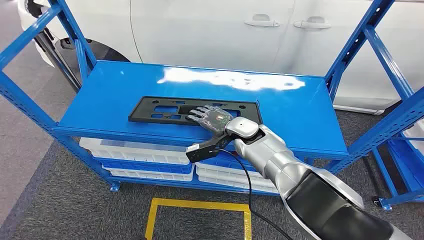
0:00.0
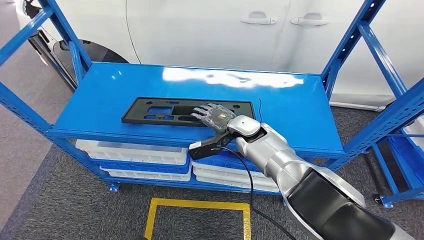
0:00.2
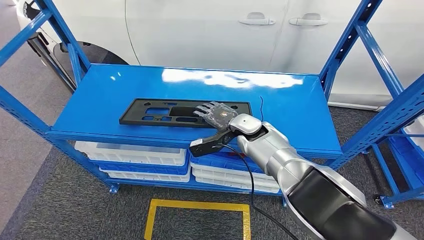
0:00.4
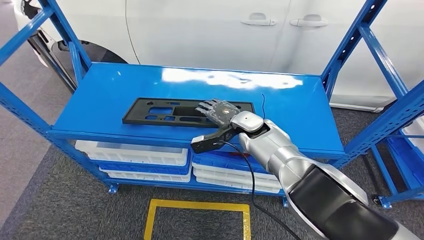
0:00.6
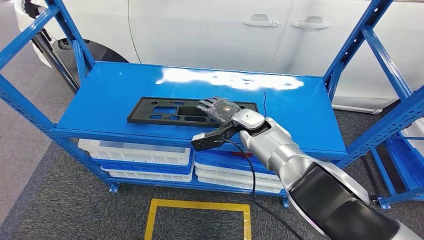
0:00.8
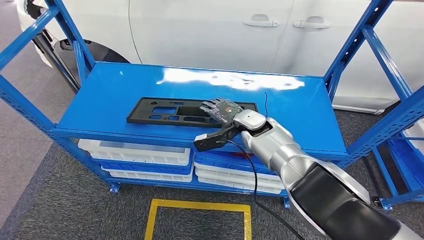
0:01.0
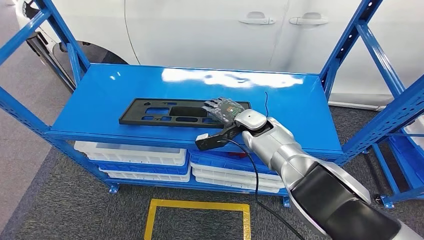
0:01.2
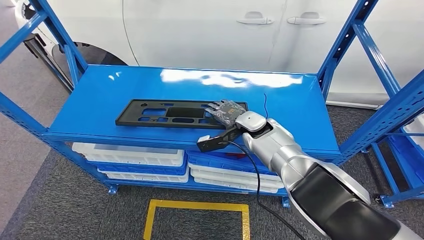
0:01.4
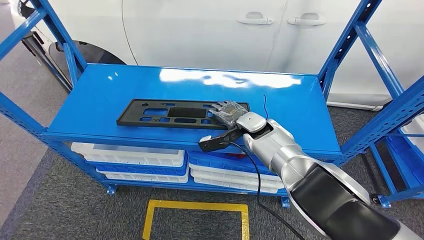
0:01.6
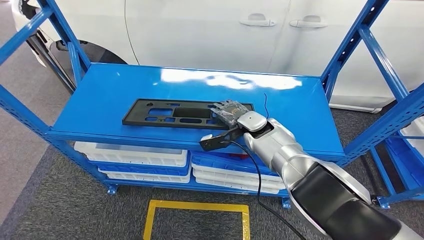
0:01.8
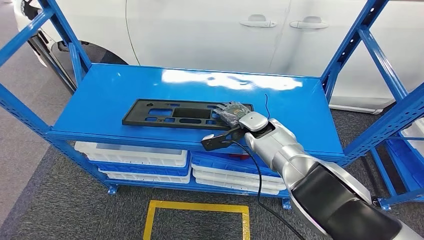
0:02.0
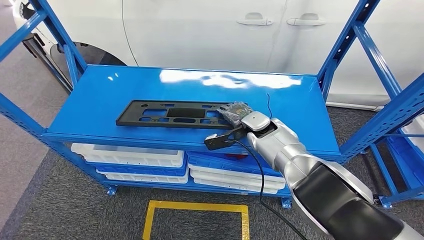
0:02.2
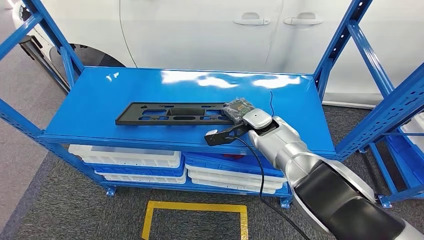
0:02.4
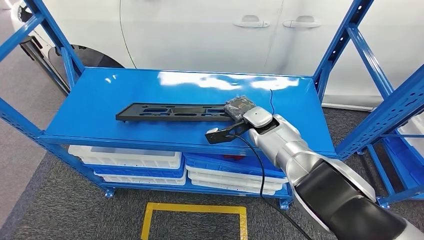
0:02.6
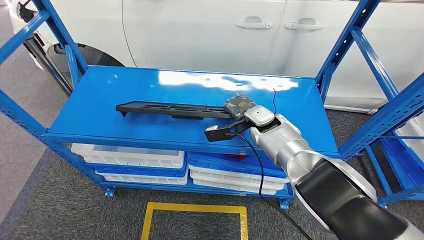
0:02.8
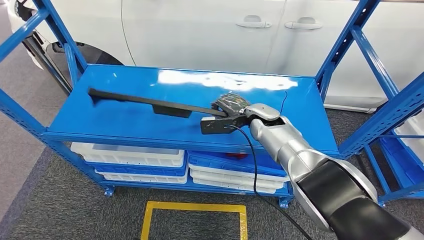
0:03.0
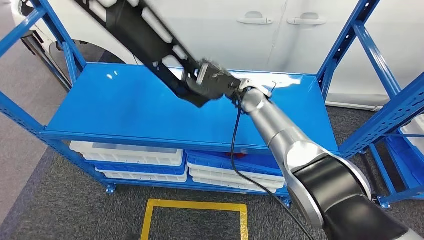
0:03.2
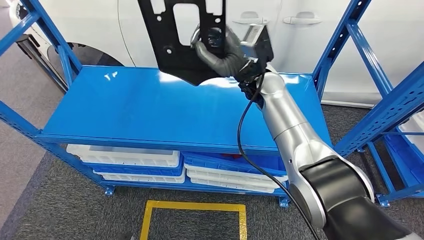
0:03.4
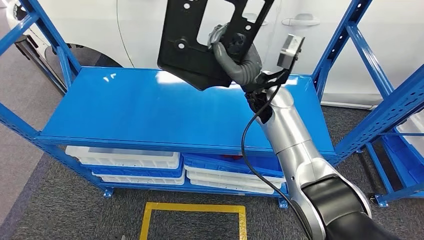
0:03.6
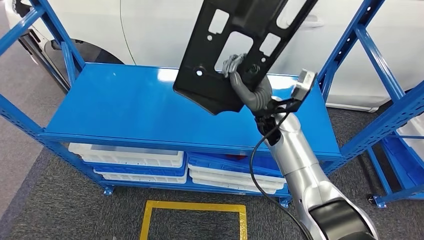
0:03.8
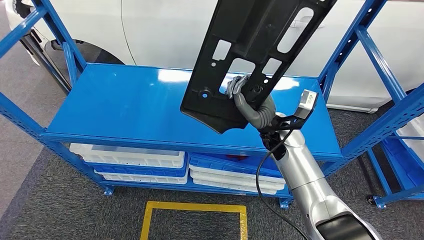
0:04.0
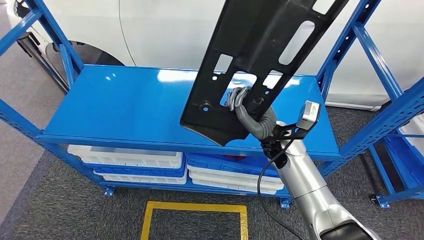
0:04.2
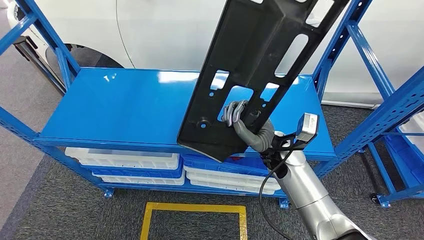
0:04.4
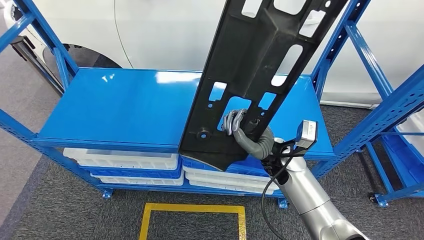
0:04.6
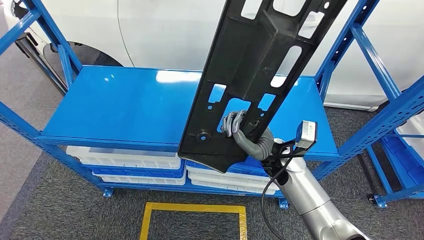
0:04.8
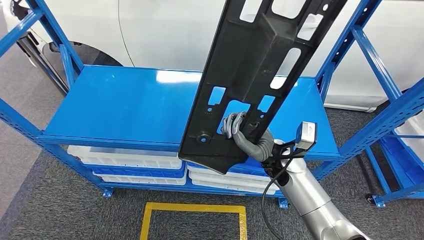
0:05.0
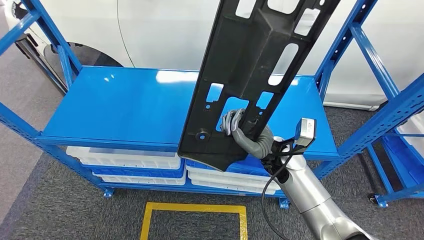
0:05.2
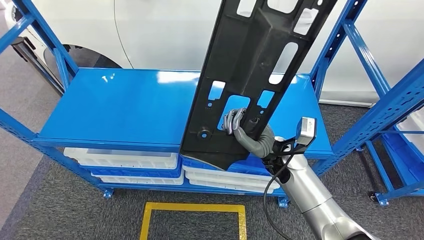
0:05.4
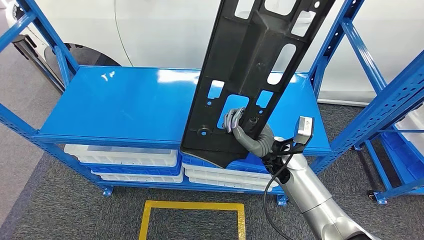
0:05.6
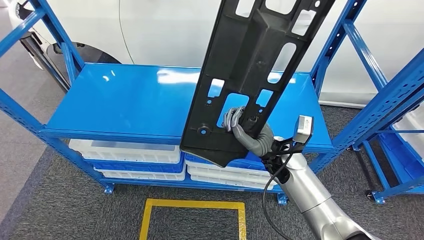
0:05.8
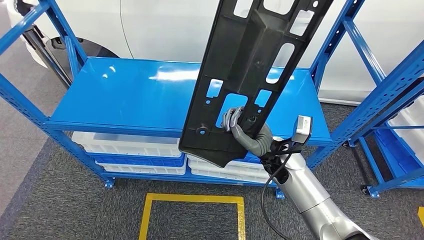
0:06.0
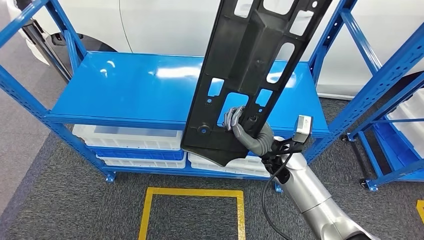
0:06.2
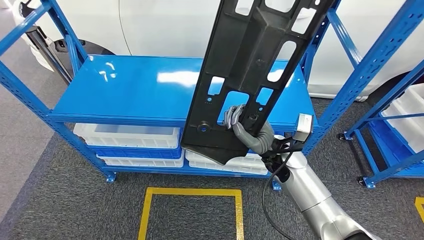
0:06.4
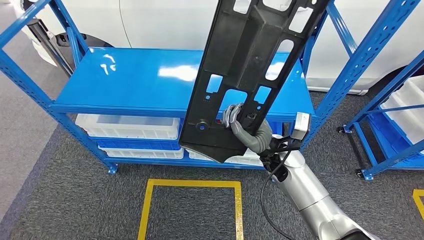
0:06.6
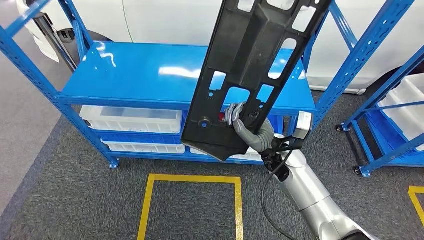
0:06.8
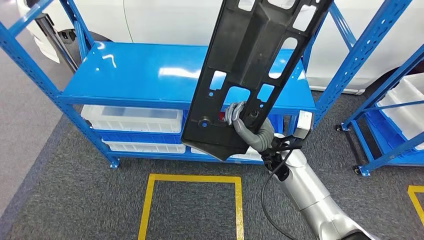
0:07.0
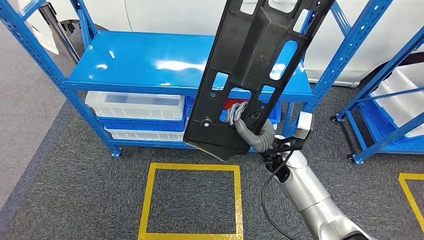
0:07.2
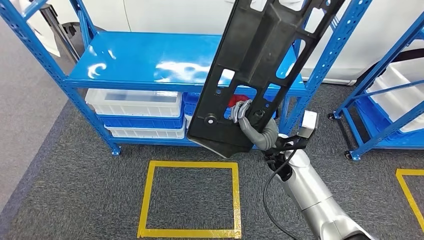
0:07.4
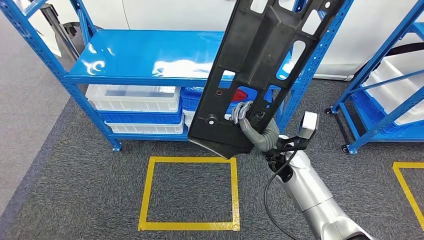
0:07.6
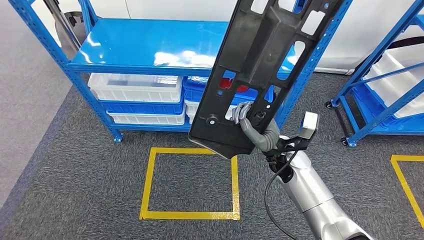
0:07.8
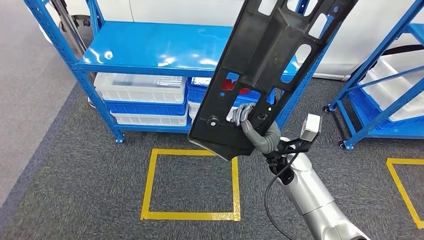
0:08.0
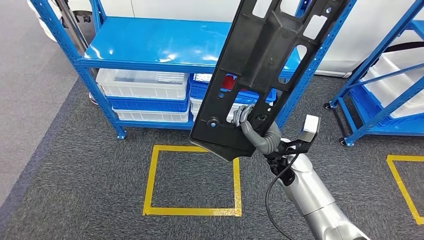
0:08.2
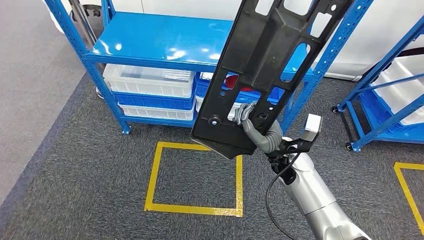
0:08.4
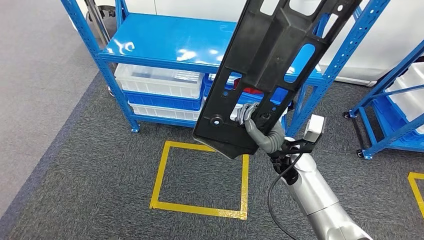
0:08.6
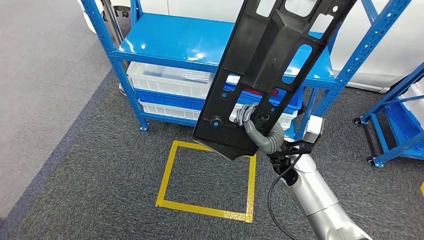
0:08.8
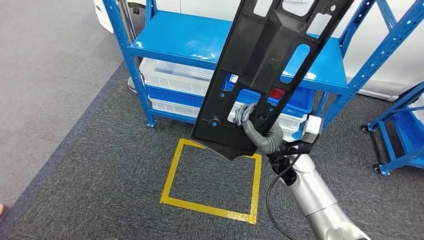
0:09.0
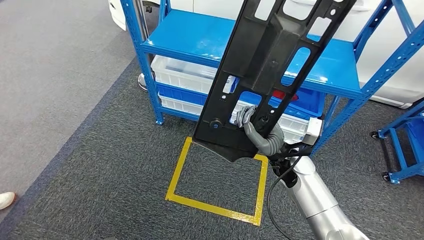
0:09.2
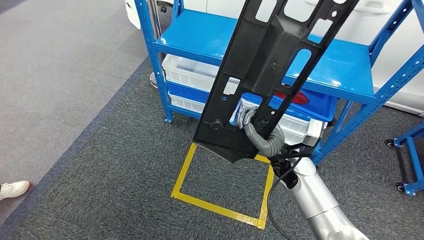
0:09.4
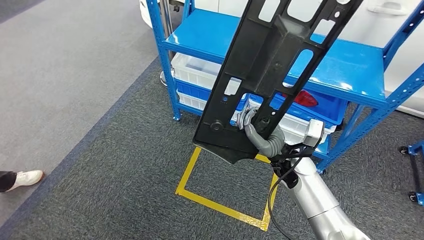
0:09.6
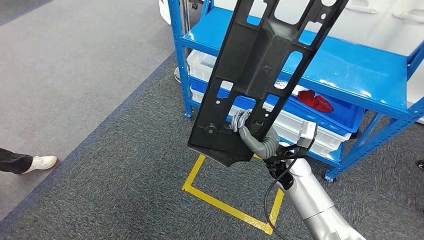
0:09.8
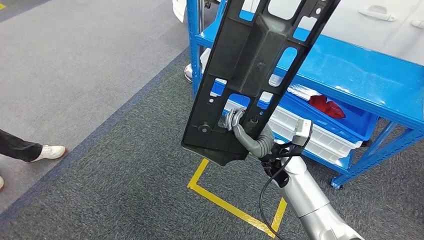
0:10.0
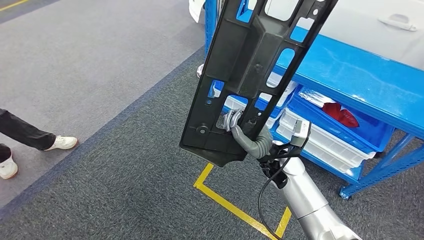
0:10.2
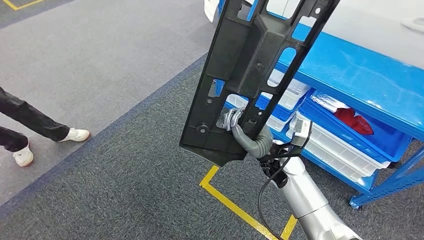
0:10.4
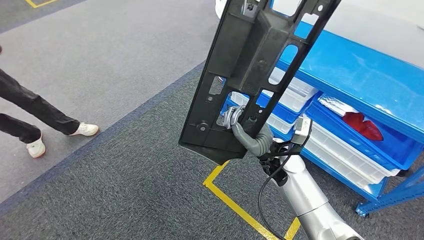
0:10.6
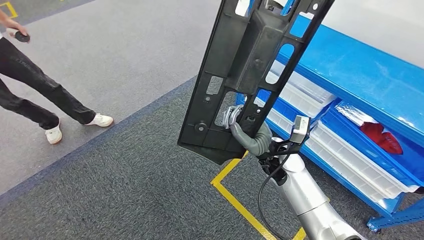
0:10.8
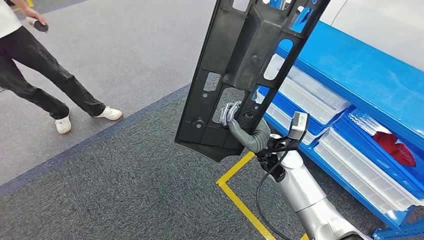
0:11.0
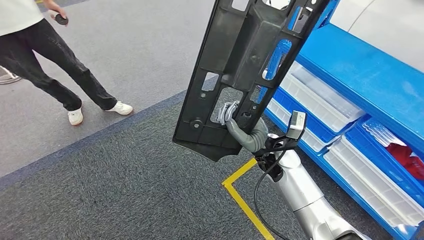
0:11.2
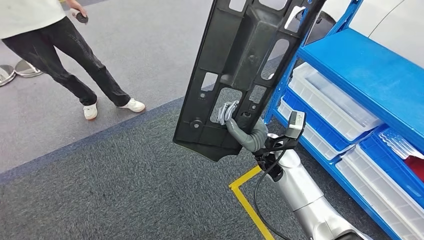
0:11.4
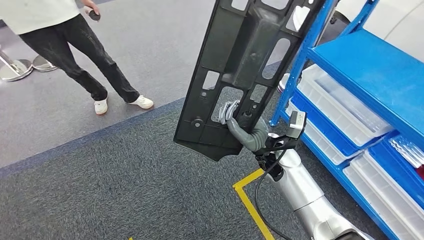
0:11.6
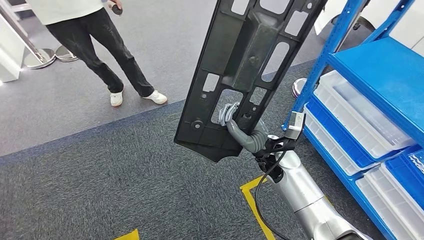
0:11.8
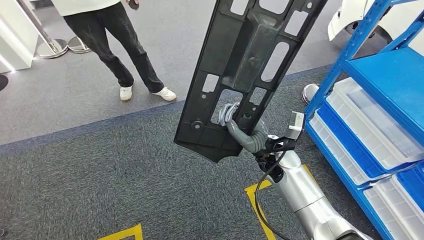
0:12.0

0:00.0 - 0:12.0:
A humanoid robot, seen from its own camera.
Step, 0:00.0 - 0:04.6: Pick up the large material from the shelf.

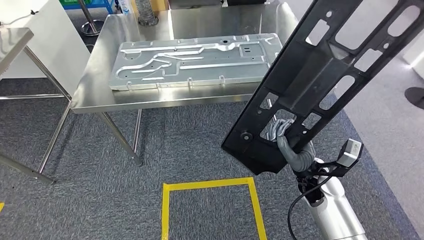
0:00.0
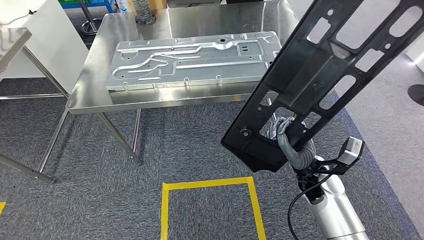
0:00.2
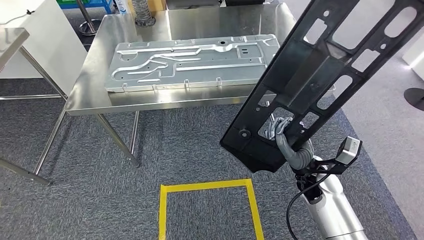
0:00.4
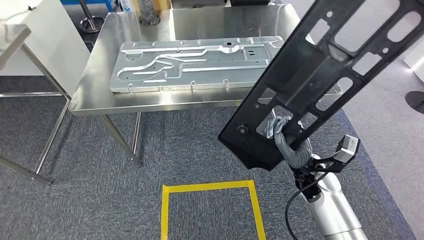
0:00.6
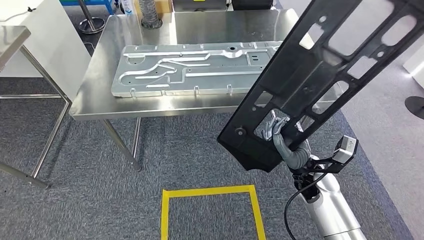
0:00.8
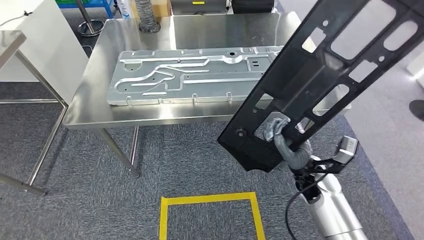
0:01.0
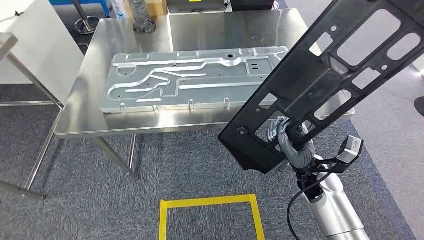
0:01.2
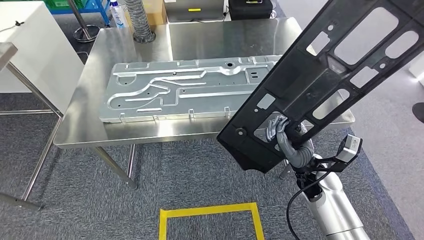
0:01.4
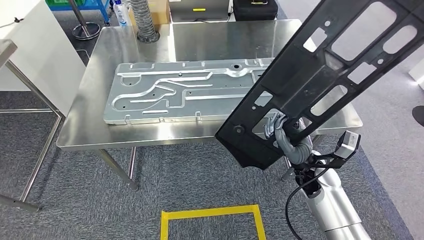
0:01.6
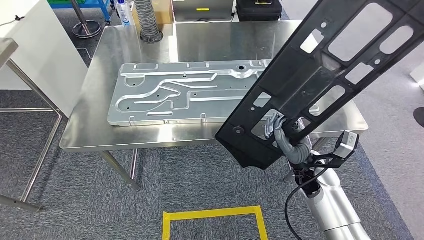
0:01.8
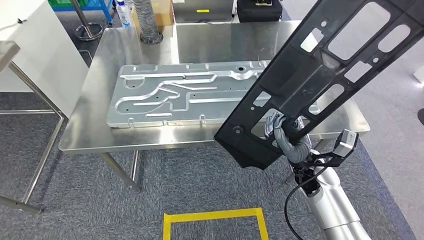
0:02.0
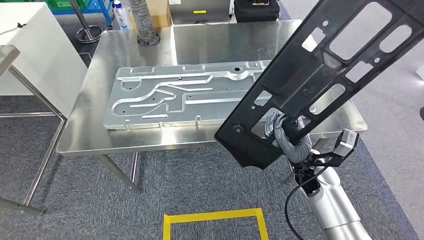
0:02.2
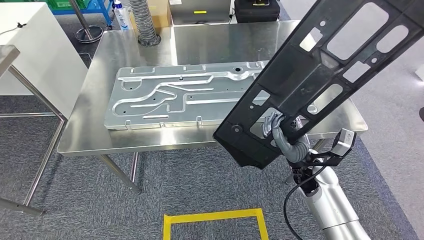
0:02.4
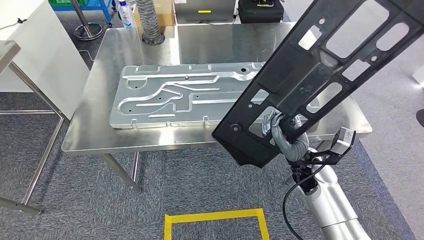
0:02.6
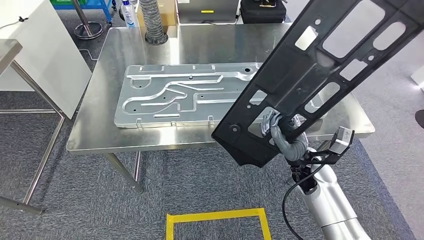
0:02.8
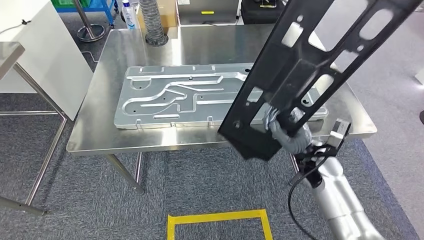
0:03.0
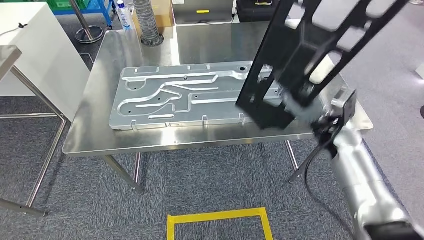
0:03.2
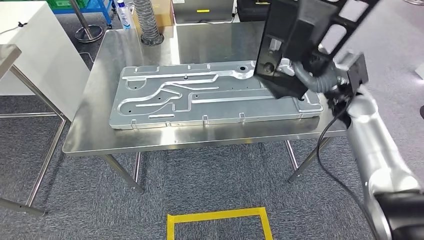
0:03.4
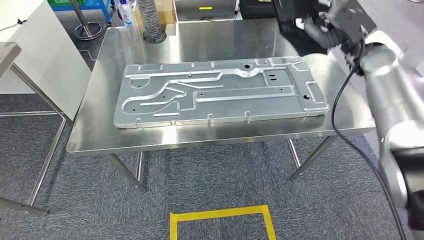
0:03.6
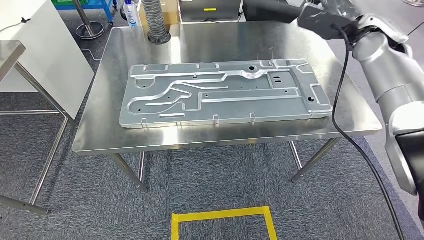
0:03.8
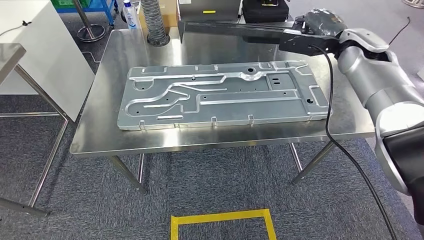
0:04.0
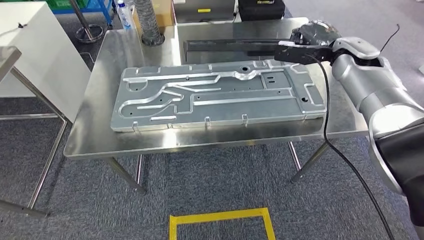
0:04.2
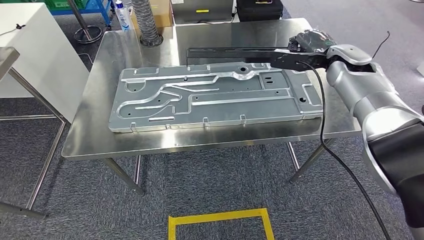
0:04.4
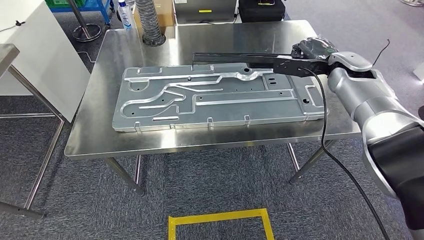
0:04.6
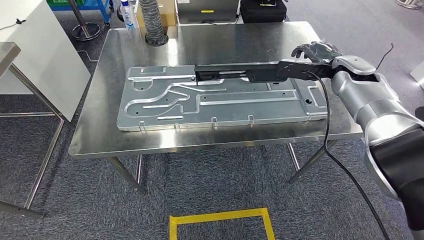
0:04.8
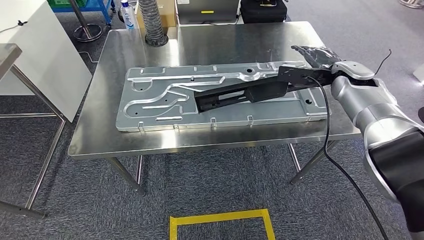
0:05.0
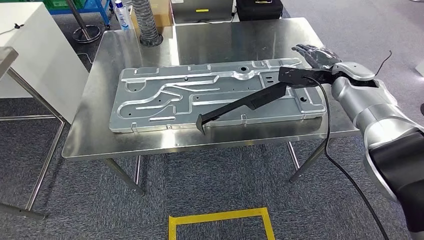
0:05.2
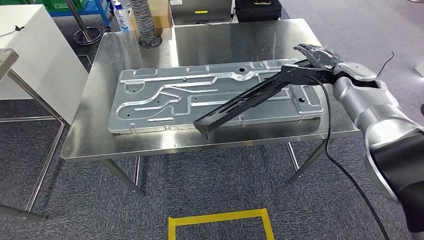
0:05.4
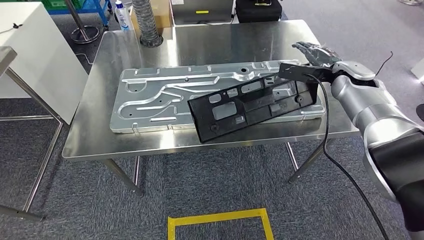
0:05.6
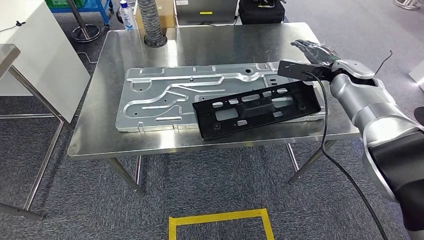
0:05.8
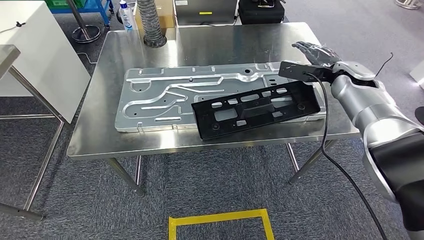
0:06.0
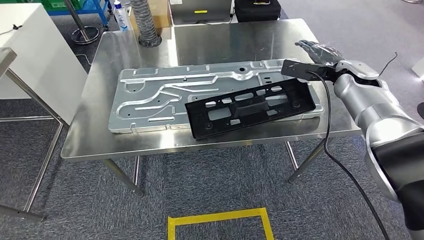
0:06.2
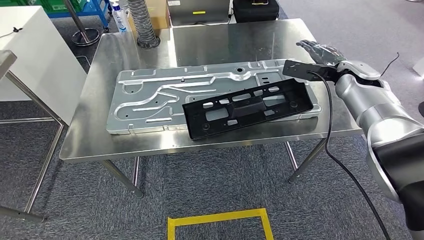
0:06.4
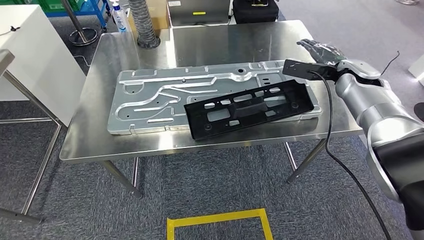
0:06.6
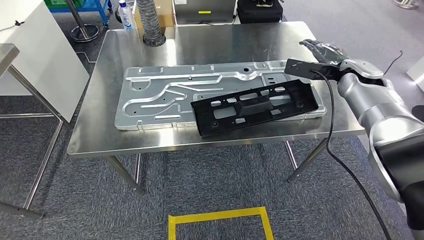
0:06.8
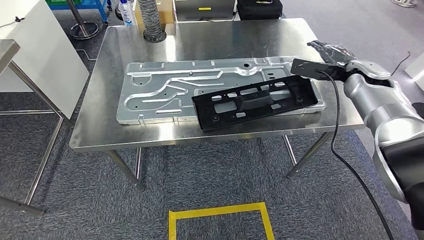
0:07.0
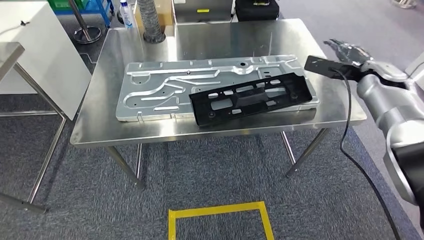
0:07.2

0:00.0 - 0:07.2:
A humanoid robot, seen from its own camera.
Step, 0:03.4 - 0:06.0: Insert the large material into the corresponding slot on the workbench.
